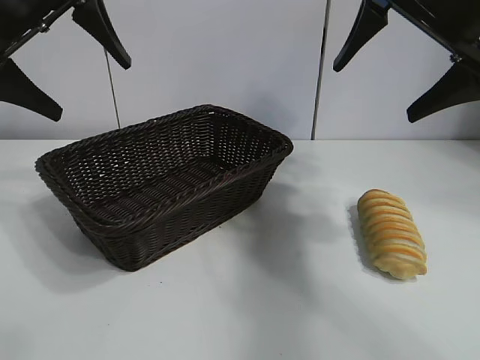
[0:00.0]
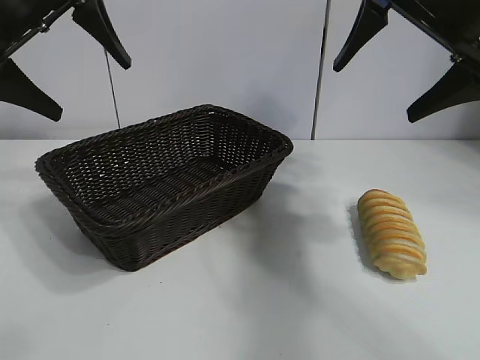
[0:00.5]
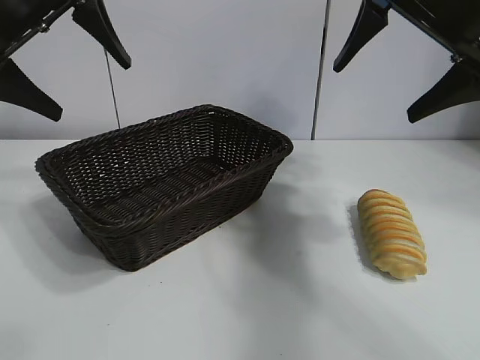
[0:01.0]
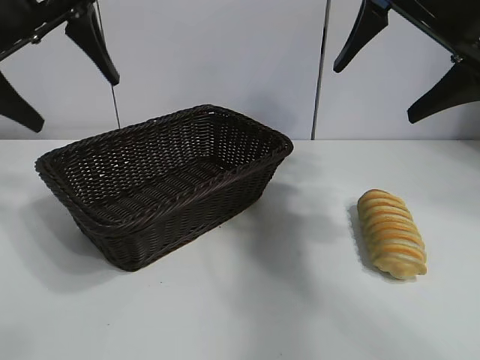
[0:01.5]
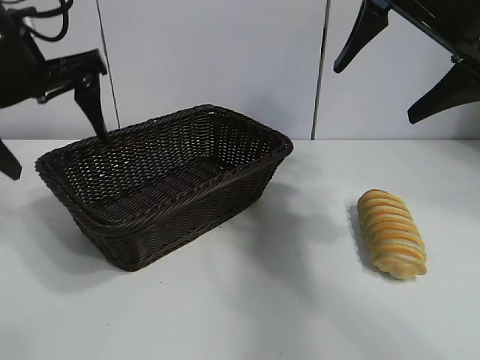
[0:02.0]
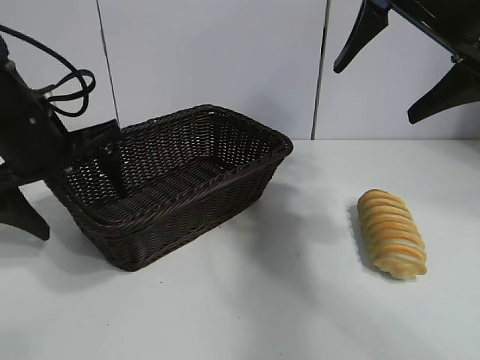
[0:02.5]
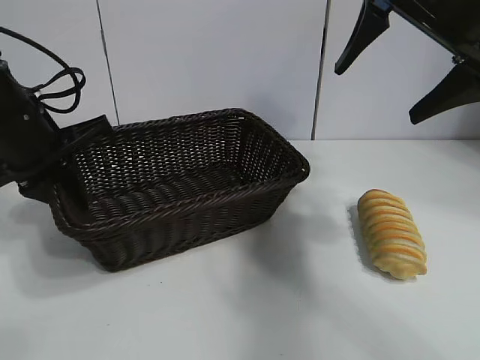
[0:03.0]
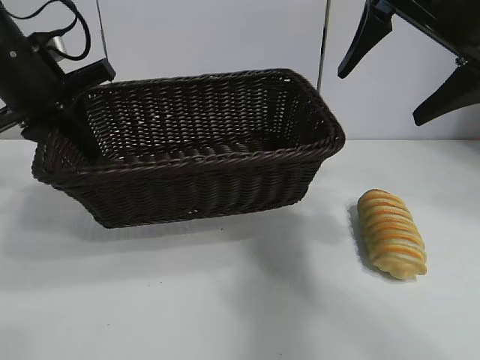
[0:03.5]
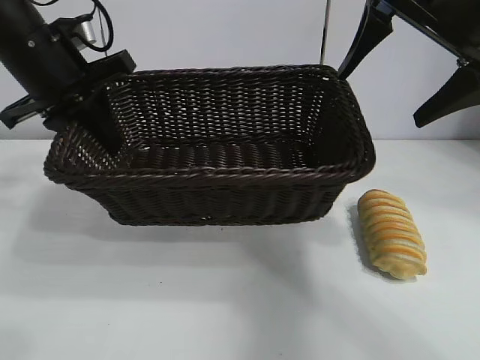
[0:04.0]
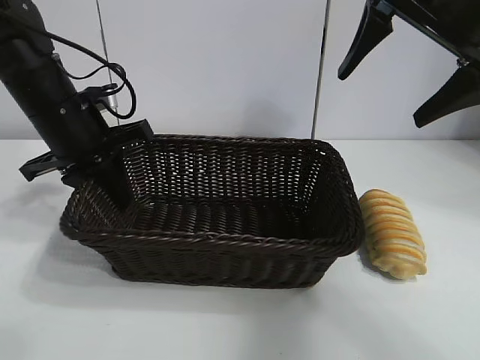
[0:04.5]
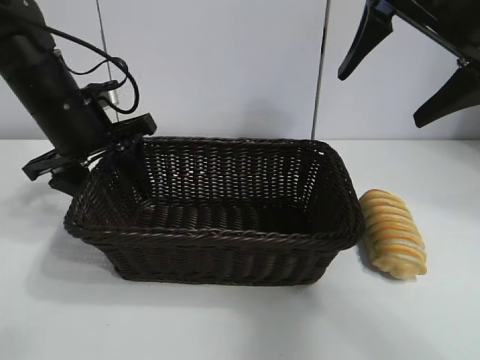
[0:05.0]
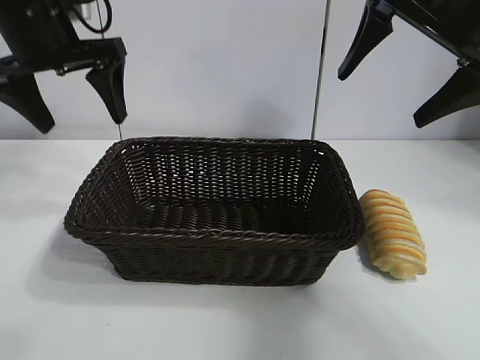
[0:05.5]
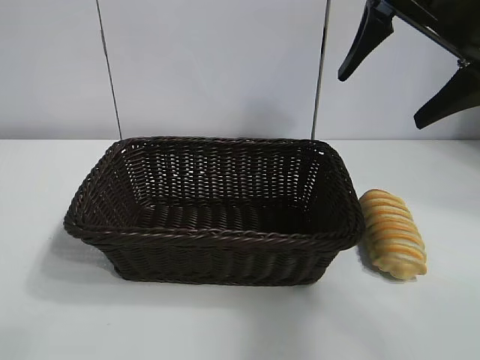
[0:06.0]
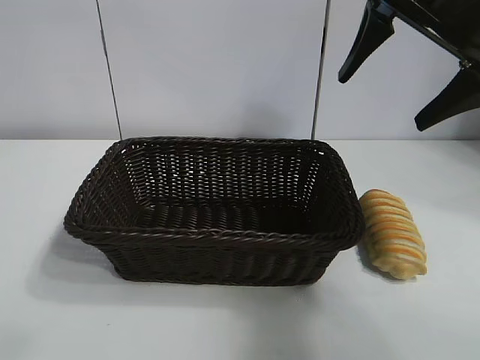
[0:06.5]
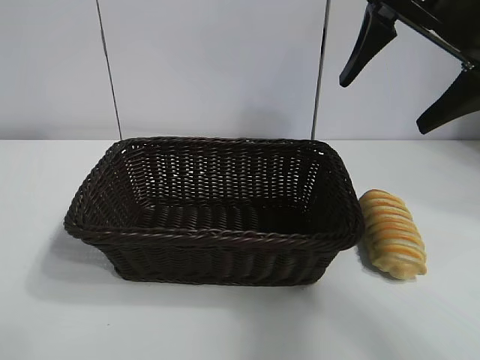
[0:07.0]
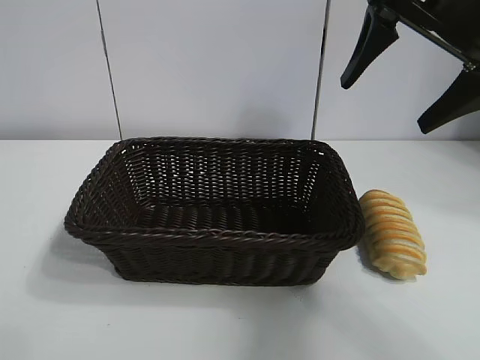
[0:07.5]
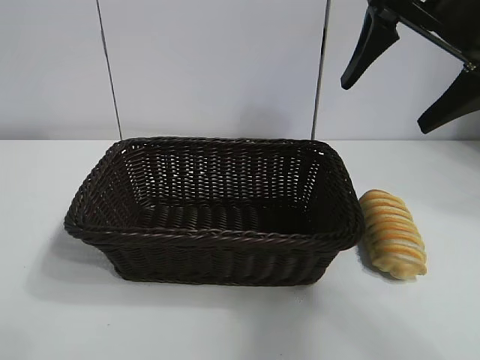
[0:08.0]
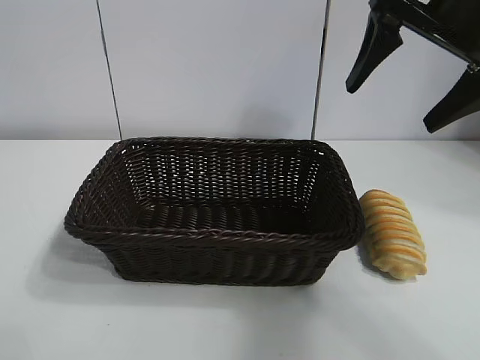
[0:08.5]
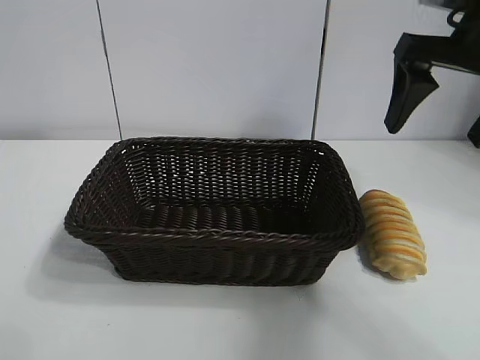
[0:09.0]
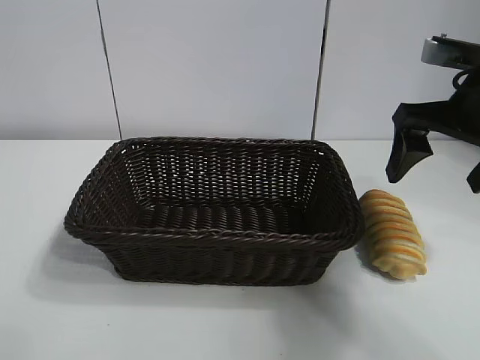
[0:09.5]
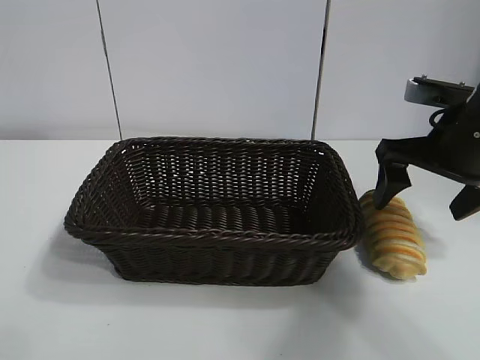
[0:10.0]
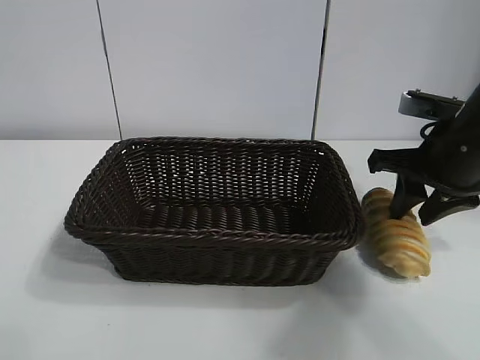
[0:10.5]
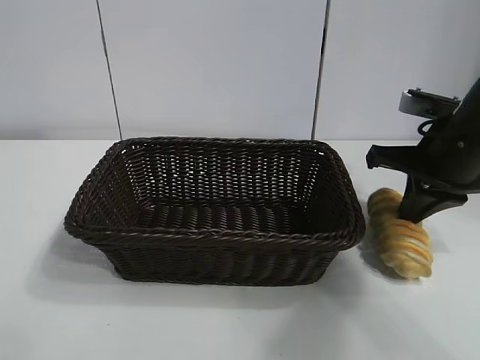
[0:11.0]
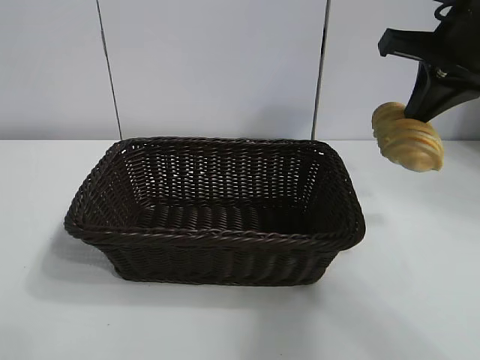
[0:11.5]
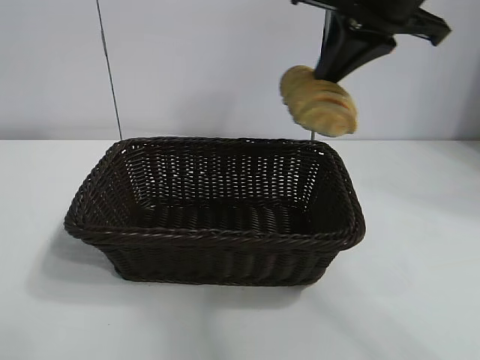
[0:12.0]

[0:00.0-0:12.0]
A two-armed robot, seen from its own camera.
Task of the whole recording: pick up the long bread and put it into the basket.
Step, 0:01.0 to 0:02.5: Grasp the basket with the left gripper.
Step, 0:03.0 to 0:05.0: Place the basket in the center of the table with the left gripper.
Step, 0:05.5 to 0:10.5: Grasp the long bread with right gripper.

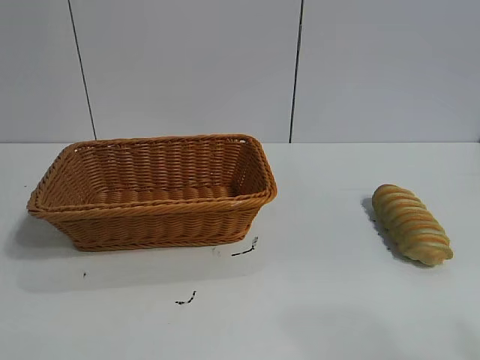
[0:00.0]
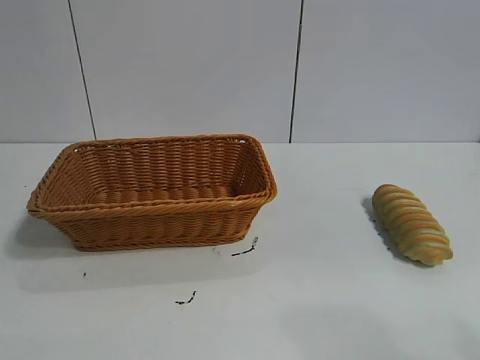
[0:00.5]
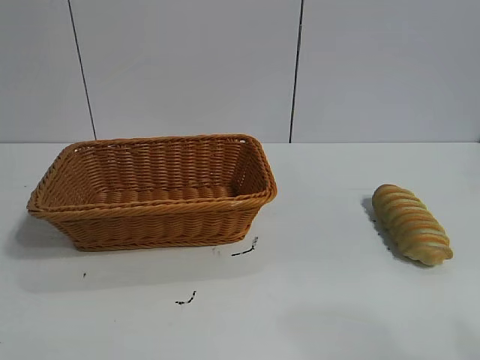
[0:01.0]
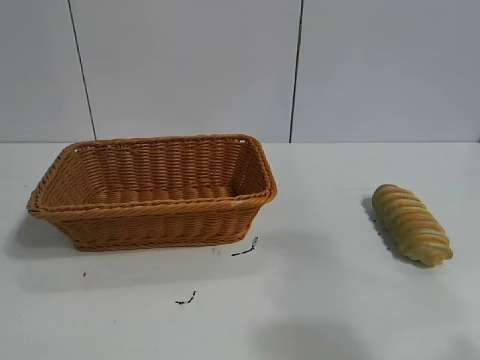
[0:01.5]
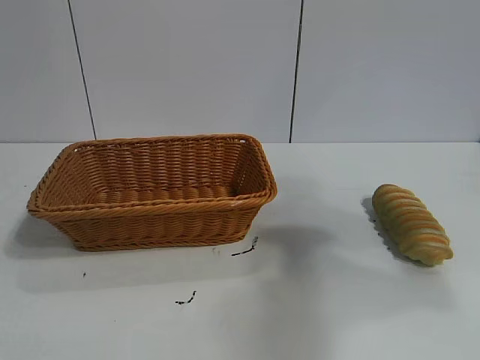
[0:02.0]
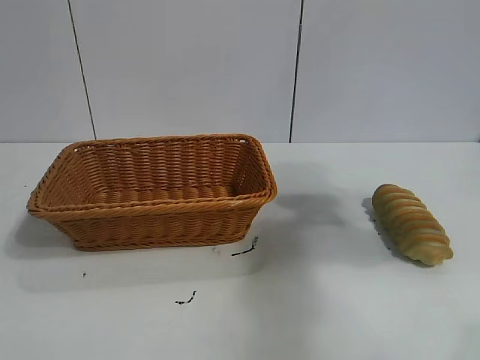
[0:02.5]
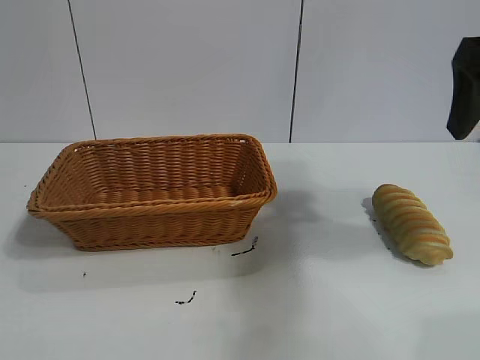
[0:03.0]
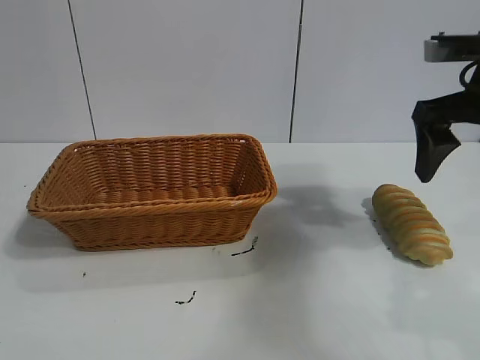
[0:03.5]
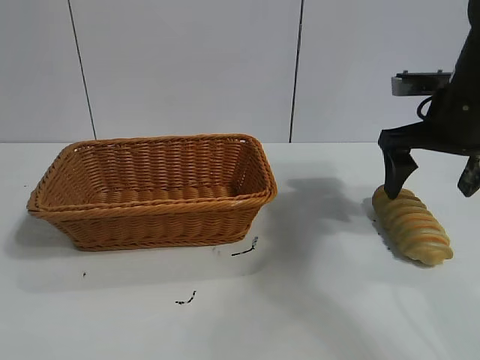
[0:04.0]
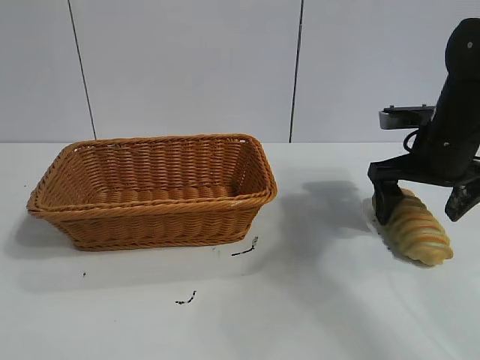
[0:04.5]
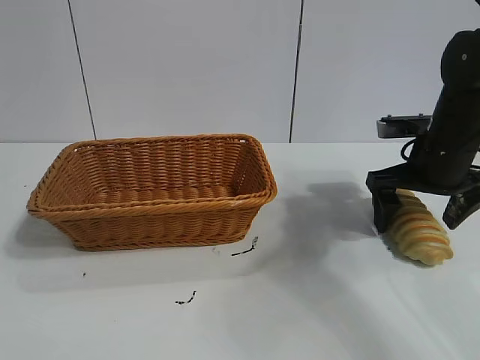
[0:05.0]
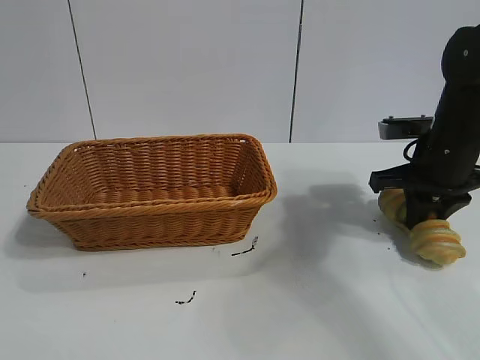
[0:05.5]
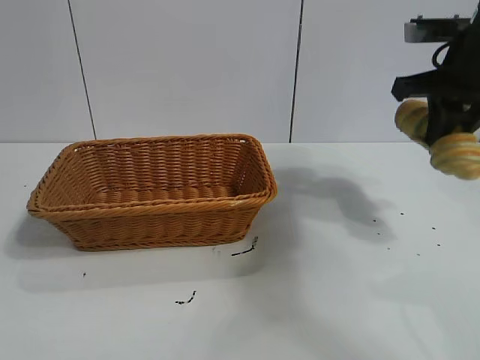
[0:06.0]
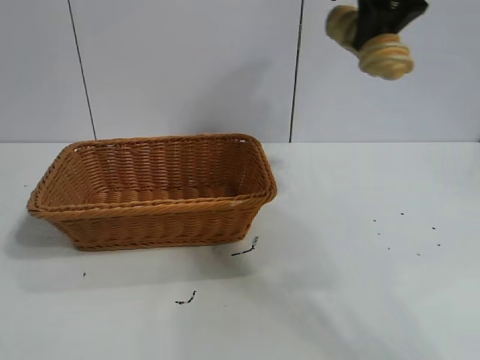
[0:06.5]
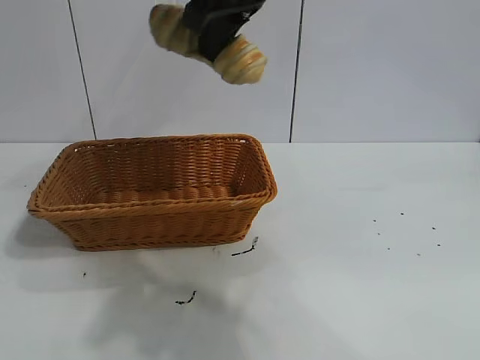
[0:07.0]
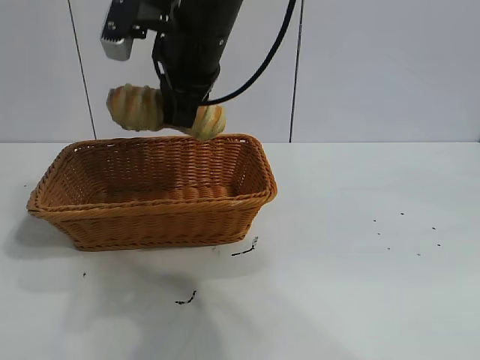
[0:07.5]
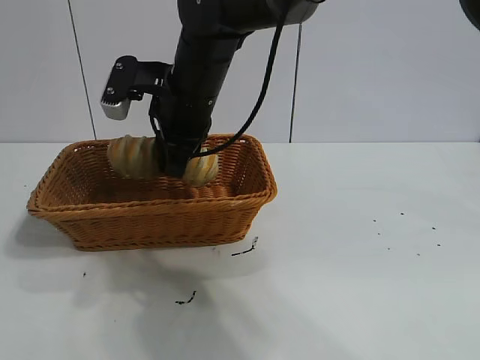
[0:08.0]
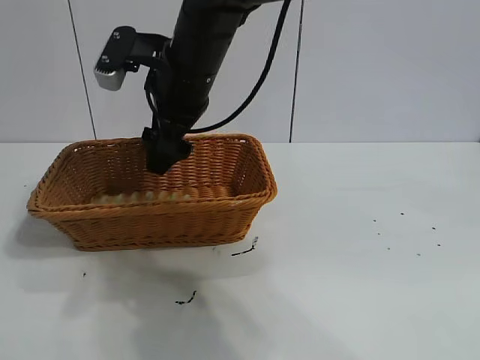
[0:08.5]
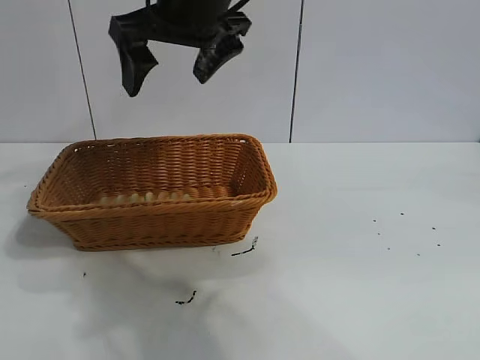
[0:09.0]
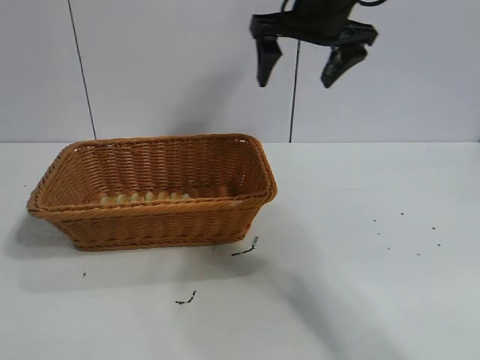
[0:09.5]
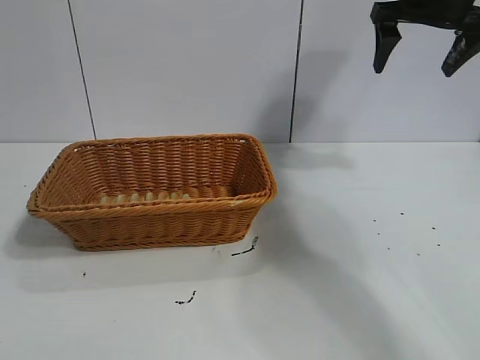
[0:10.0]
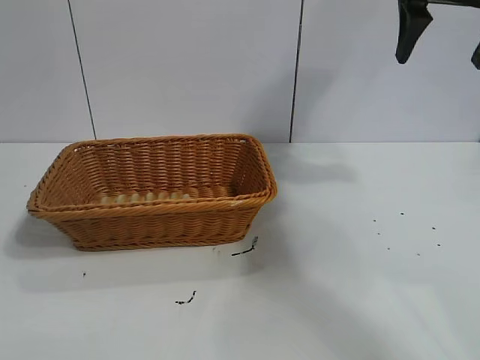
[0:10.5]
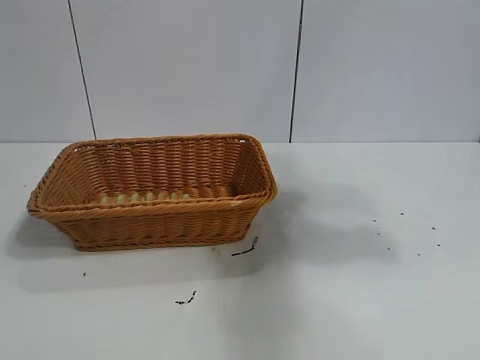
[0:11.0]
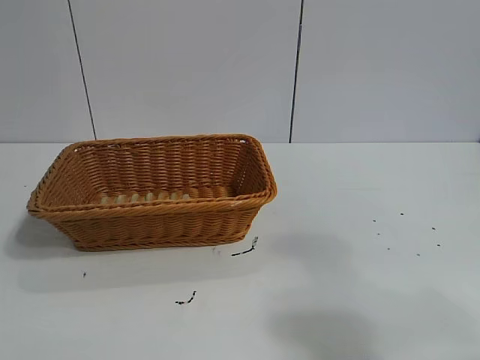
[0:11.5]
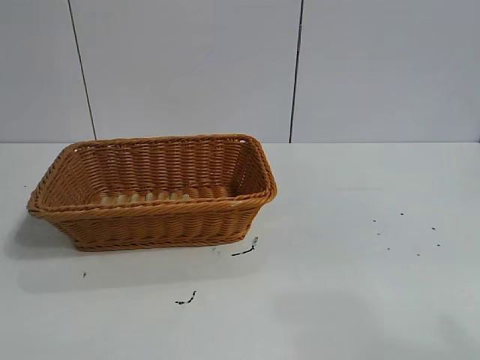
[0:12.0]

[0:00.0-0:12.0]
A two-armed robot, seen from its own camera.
Task of the whole recording: pick up the long bread and put it into the basket.
Step, 0:03.0 to 0:05.5: Grasp the long bread with right gripper.
Step, 0:06.0 to 0:08.5: Place the long bread in the basket with right gripper.
